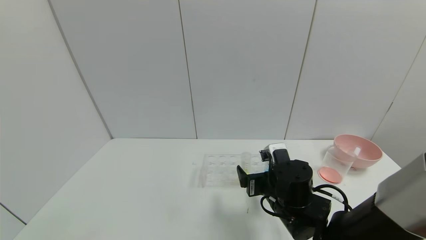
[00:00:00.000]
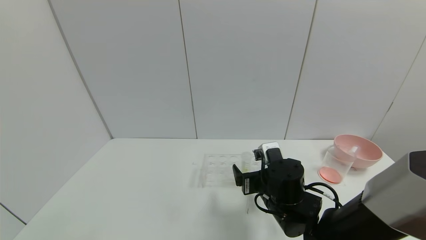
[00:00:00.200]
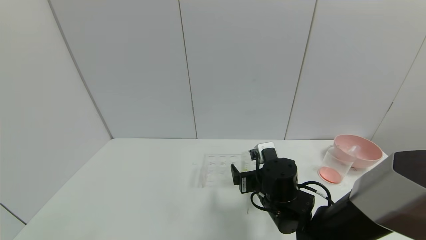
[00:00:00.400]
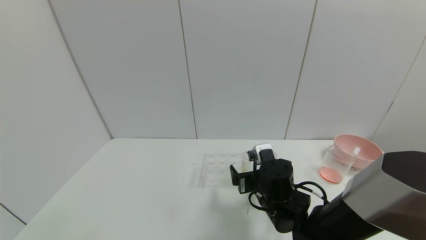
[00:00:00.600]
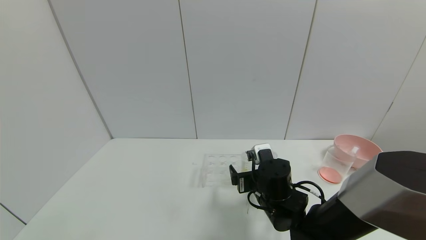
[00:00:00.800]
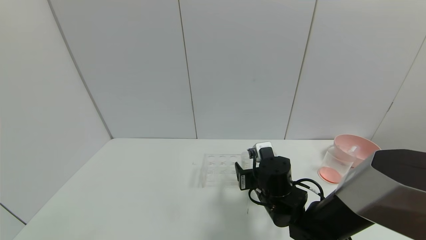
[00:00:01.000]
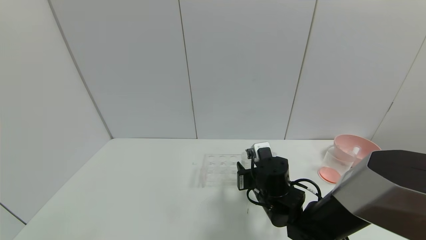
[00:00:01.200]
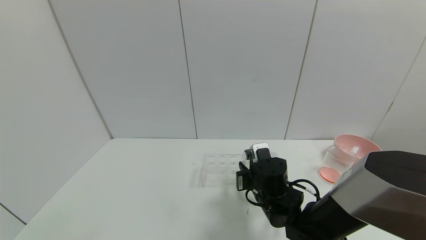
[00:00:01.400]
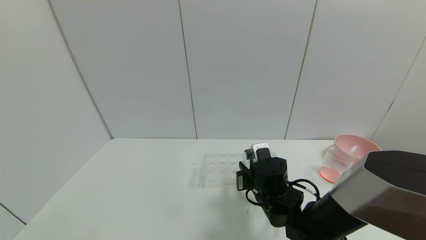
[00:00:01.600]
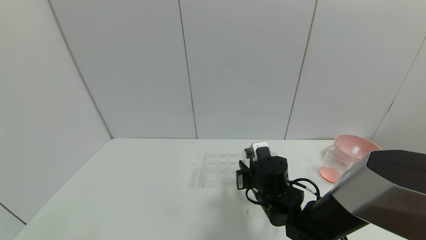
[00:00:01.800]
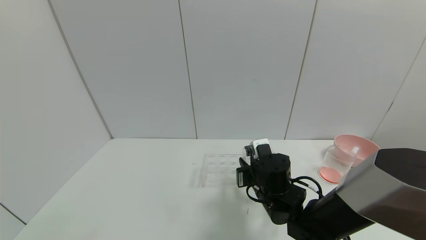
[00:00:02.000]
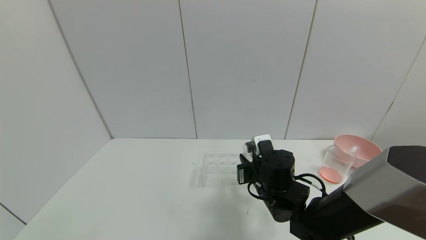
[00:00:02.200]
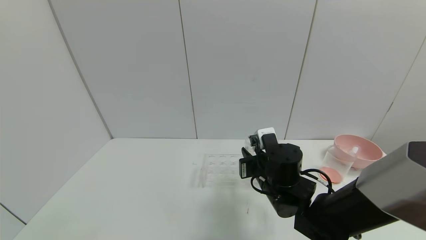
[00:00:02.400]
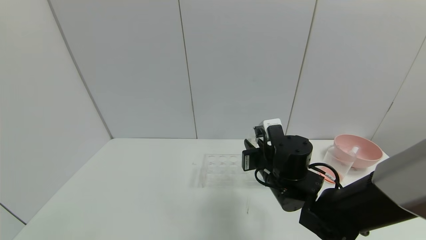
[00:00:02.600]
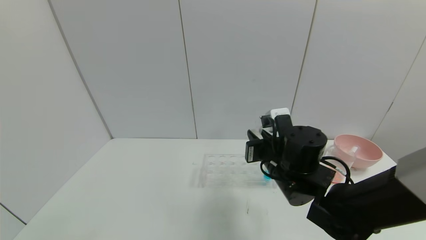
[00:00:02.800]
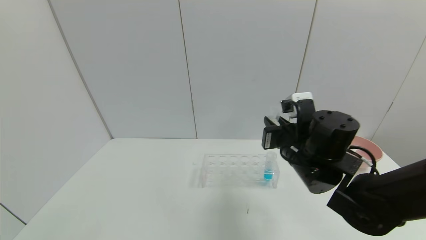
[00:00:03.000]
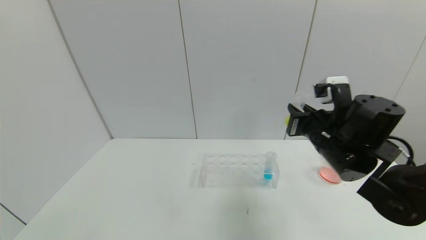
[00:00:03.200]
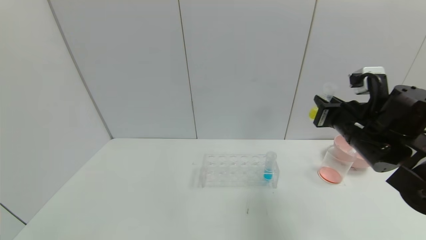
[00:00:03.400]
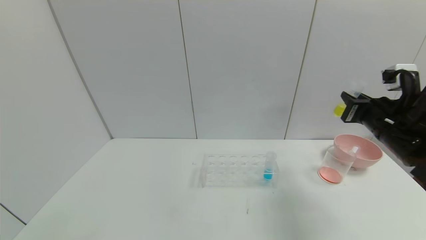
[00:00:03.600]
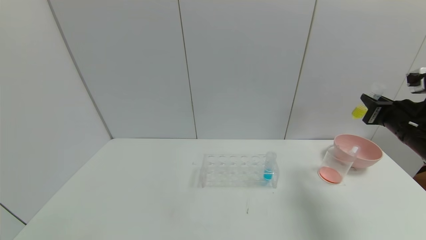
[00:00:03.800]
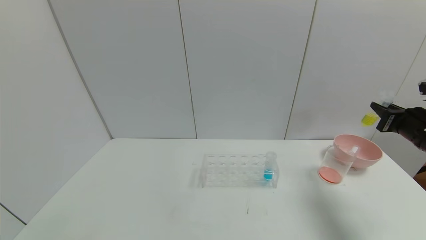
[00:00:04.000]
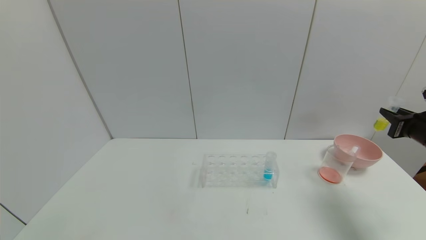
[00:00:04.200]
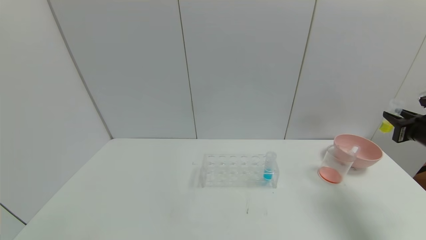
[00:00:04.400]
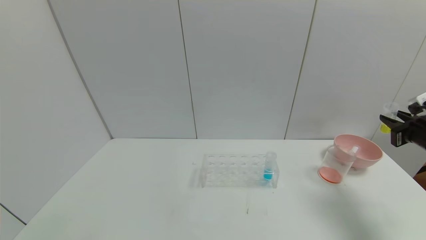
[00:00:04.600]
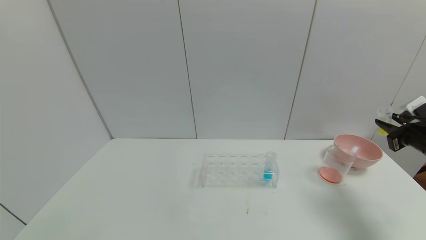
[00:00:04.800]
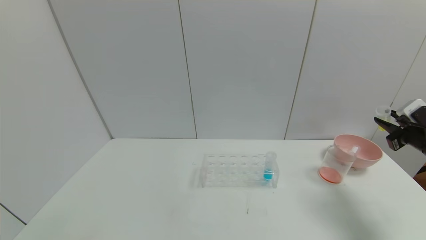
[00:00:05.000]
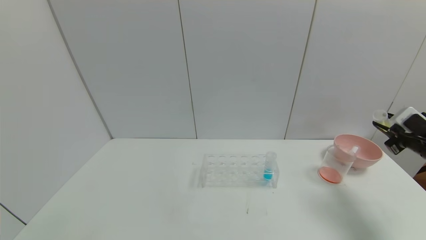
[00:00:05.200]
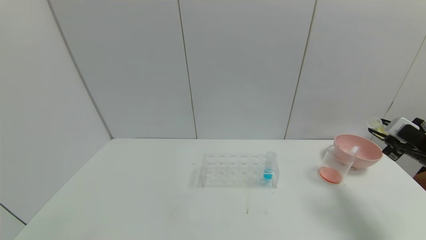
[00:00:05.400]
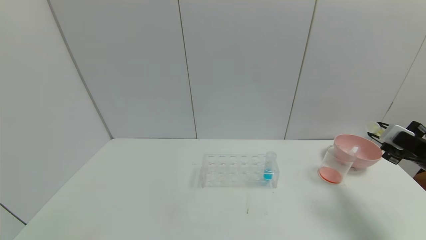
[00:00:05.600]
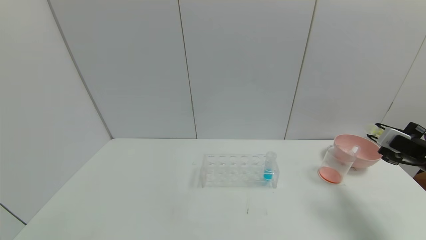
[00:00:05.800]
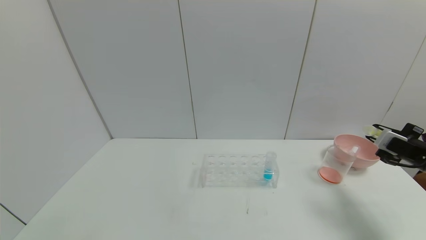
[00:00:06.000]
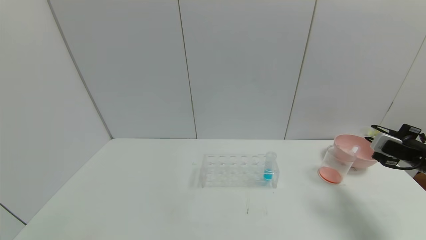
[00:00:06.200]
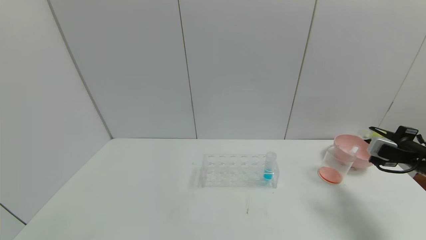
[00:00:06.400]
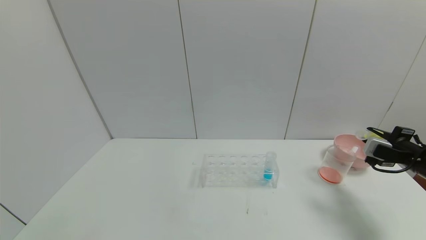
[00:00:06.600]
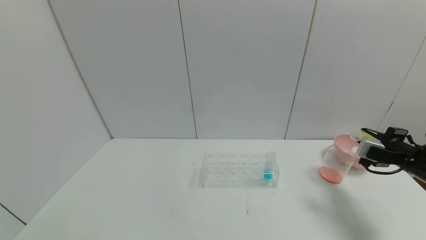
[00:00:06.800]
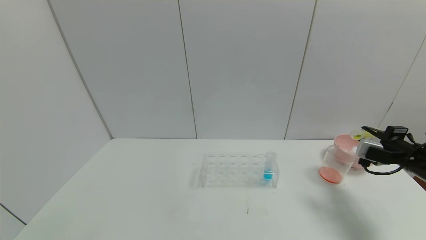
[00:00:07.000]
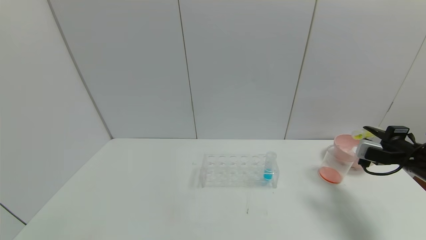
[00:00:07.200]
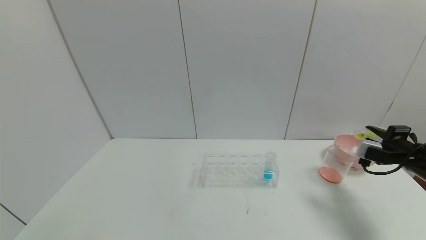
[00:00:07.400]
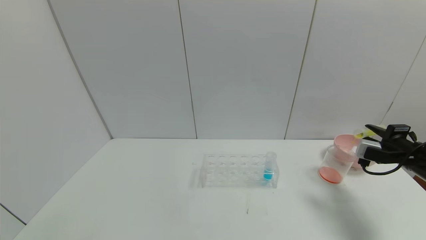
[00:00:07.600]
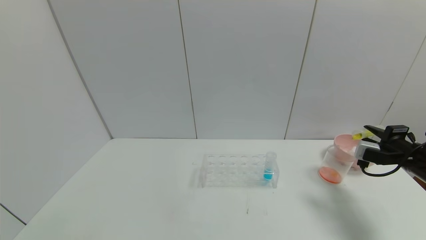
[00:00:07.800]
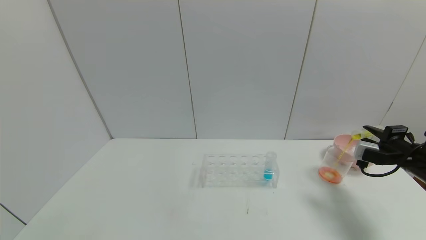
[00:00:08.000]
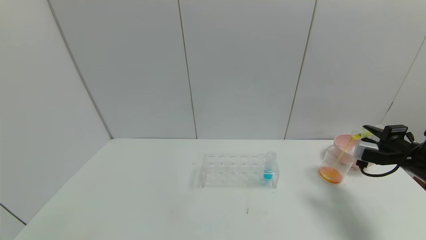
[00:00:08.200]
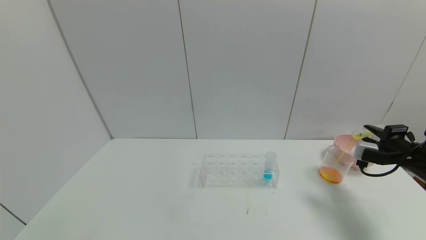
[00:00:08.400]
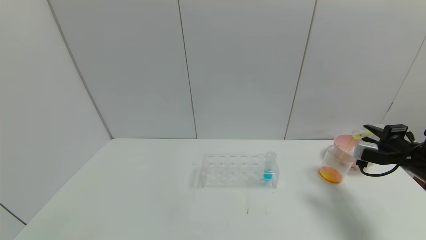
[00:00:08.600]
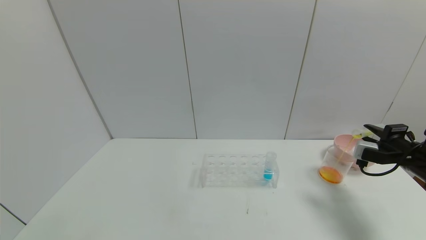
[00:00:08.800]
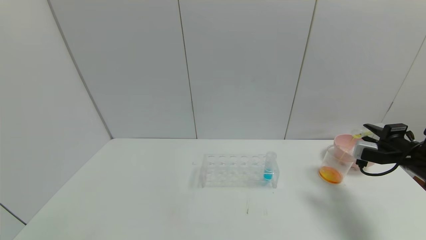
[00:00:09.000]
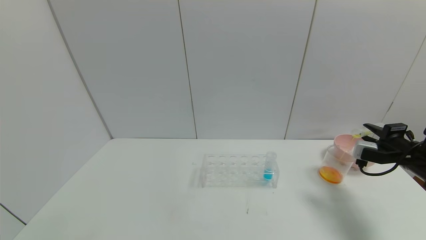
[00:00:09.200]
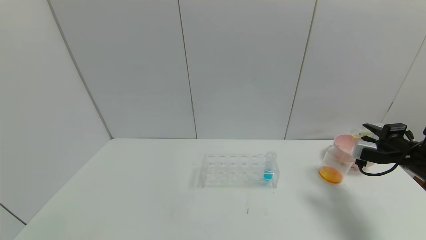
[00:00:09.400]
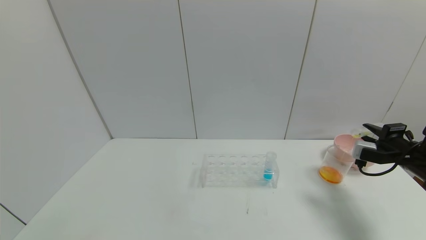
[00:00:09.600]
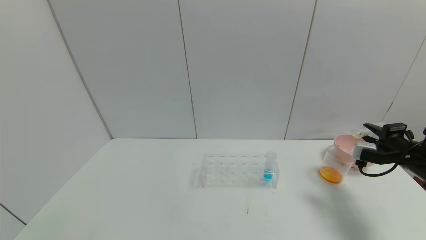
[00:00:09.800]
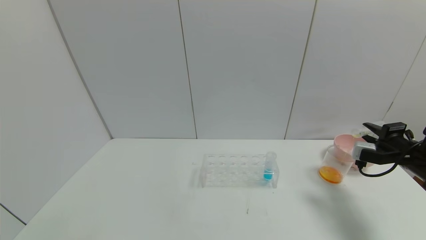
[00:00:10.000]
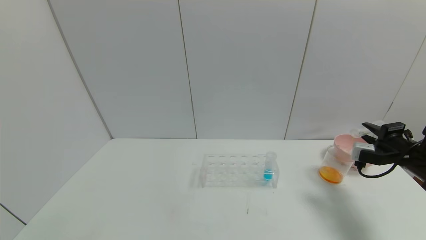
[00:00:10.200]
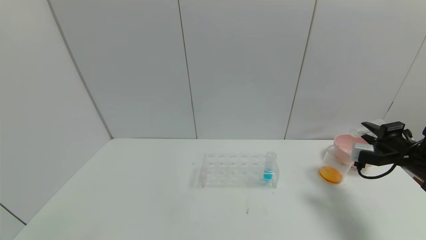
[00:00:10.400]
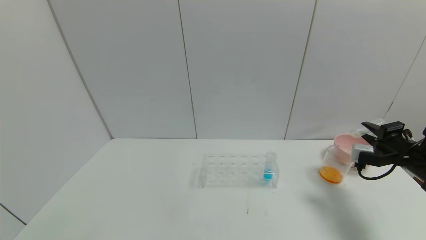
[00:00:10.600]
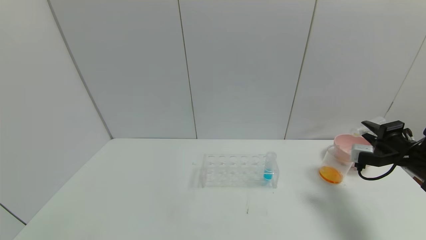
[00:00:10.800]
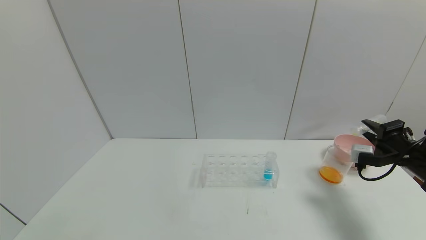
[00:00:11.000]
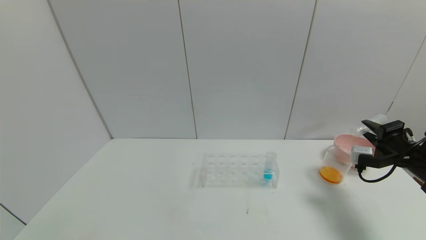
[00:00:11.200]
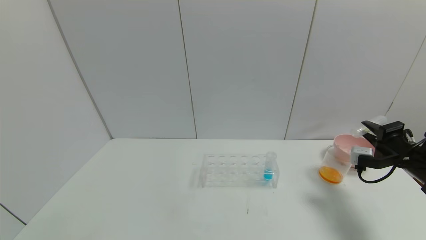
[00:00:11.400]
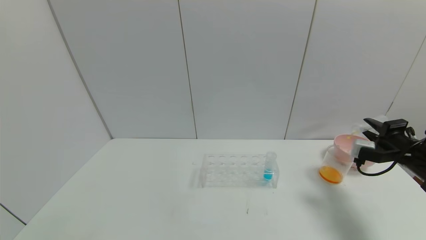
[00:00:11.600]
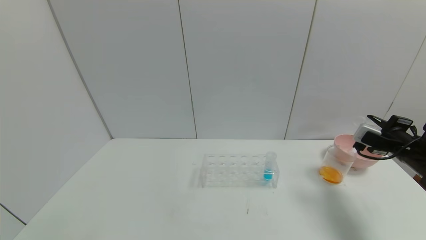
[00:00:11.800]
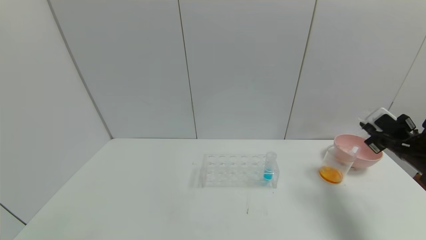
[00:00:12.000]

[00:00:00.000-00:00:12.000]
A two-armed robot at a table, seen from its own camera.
Task of the whole recording: pick up the test tube with yellow pigment and the test tube with red pigment by grippers and pour them into the beaker.
Step, 00:00:00.000 to 00:00:03.200: Pick up the test tube containing the yellow reagent with right gripper.
00:00:00.000 to 00:00:01.600: The right gripper closes.
00:00:01.600 to 00:00:03.000: The right gripper travels upward and to the right by some 10 cm.
00:00:03.000 to 00:00:04.400: The right gripper moves to the right, some 30 cm.
00:00:07.600 to 00:00:09.000: Both grippers stay put.
00:00:09.000 to 00:00:10.400: The grippers move only a little.

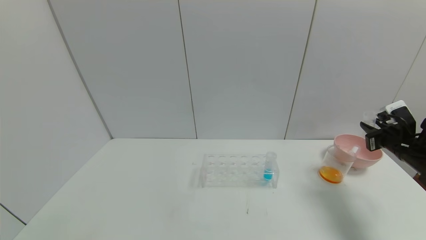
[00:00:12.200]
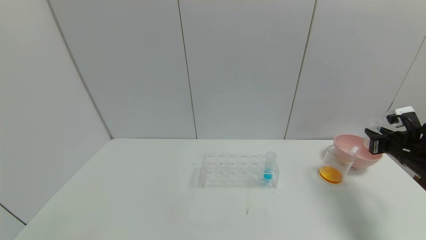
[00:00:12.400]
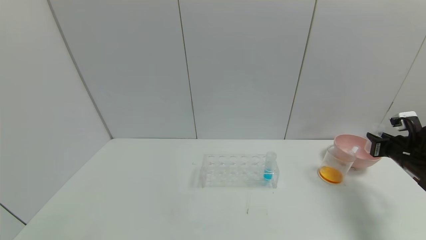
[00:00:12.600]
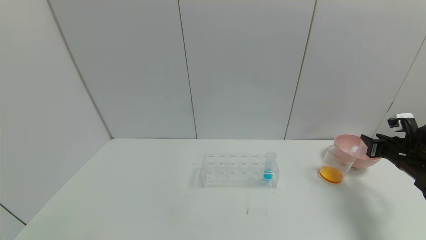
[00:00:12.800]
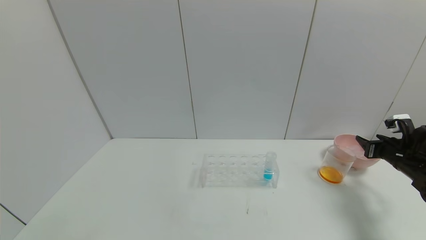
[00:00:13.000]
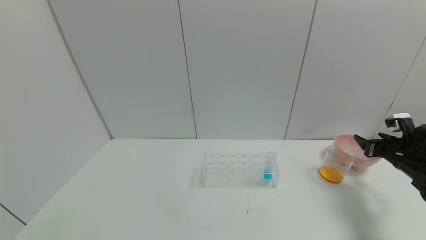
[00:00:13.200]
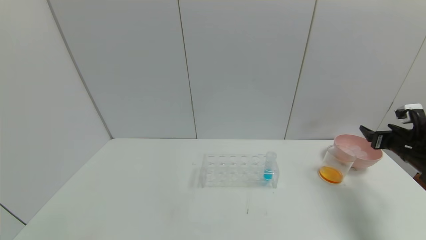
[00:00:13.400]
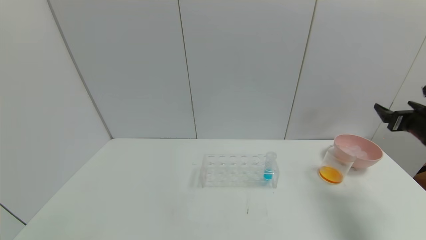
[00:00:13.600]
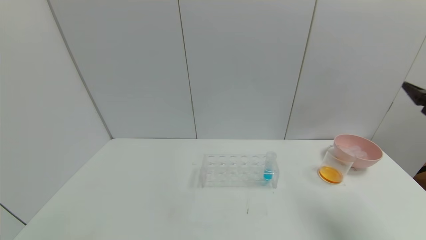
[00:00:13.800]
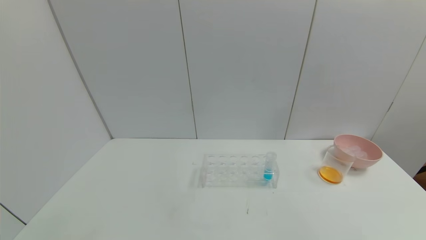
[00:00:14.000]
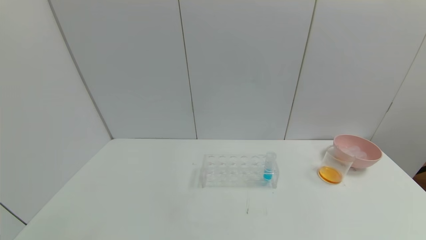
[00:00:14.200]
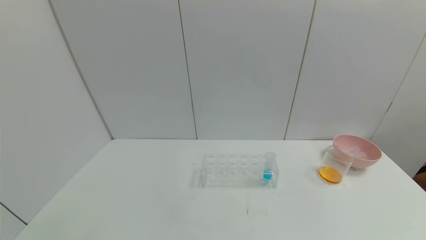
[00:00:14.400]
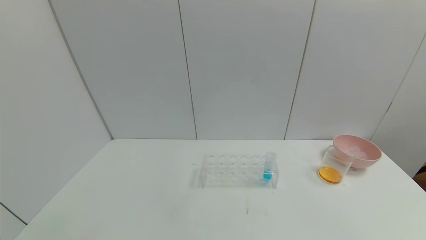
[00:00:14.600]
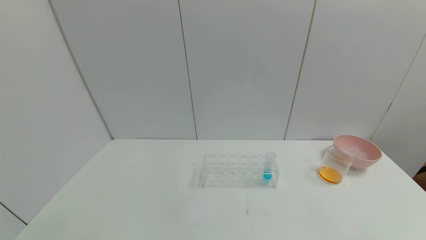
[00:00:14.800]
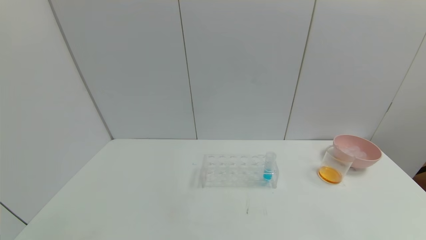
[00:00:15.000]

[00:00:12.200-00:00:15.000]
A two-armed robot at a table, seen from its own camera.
Task of the whole recording: pick up the test tube with yellow pigment and the test tube with red pigment by grippers and pour them into the beaker.
Step, 00:00:12.200 to 00:00:13.600: Place the test tube into the bowl with right gripper.
00:00:12.200 to 00:00:13.600: The right gripper ends up roughly 5 cm from where it was, and opens up.
00:00:13.600 to 00:00:15.000: The right gripper heads backward, covering roughly 35 cm.
